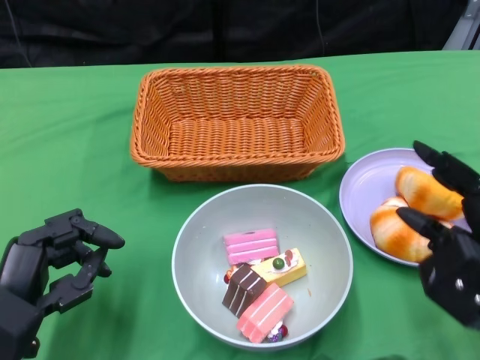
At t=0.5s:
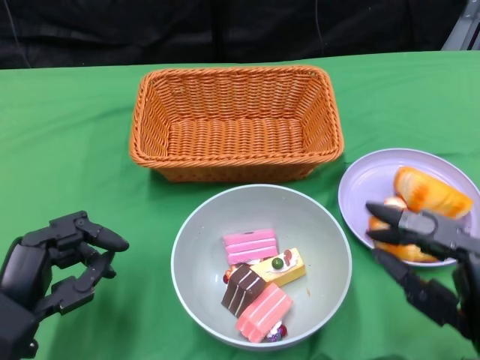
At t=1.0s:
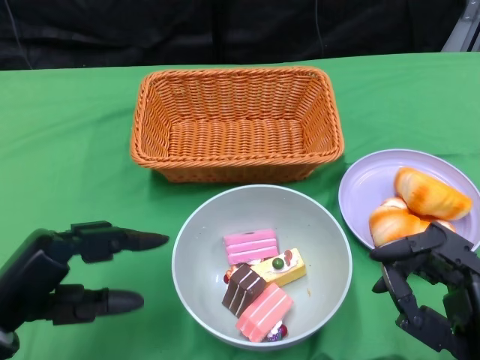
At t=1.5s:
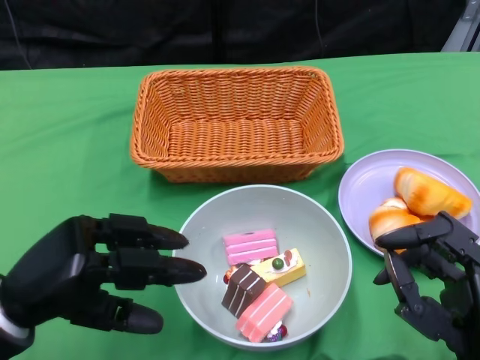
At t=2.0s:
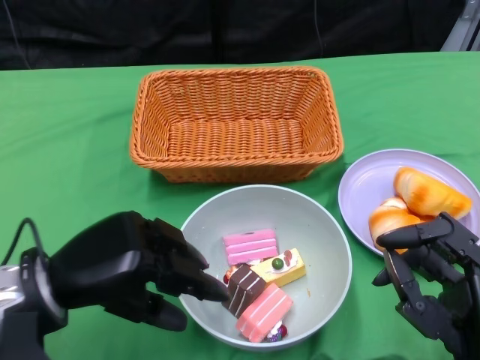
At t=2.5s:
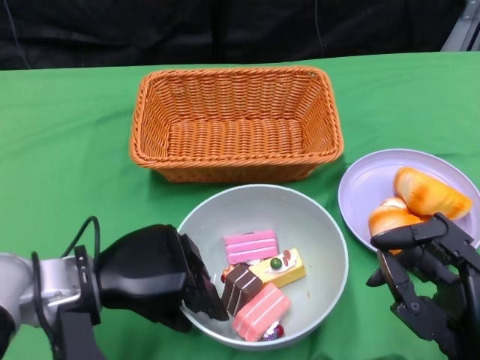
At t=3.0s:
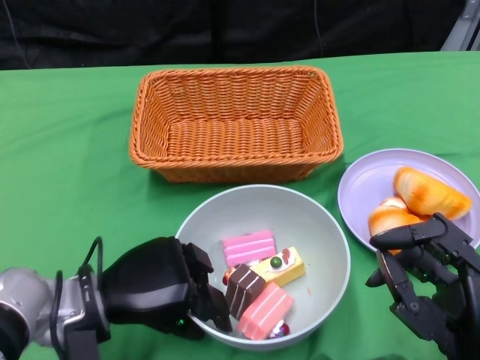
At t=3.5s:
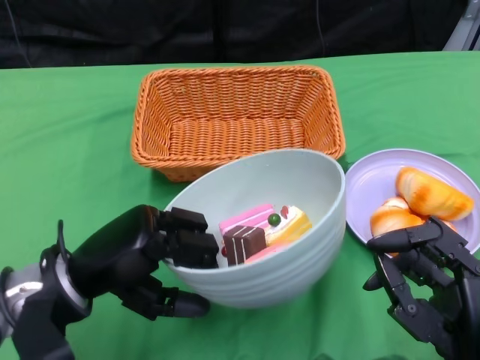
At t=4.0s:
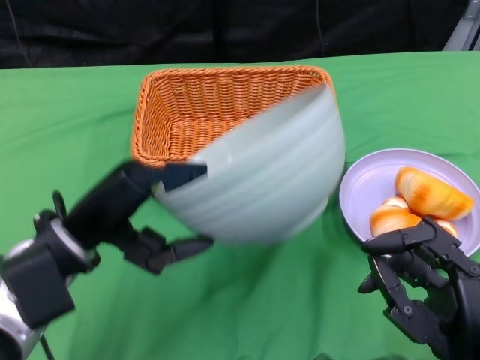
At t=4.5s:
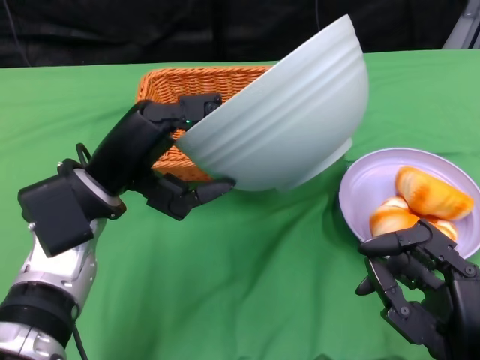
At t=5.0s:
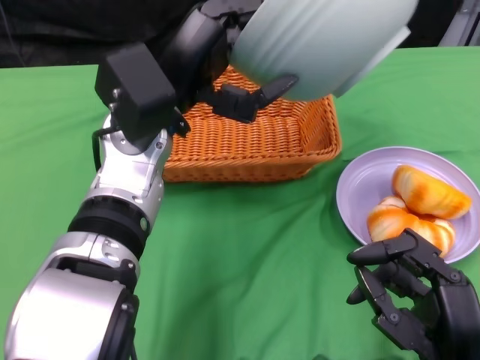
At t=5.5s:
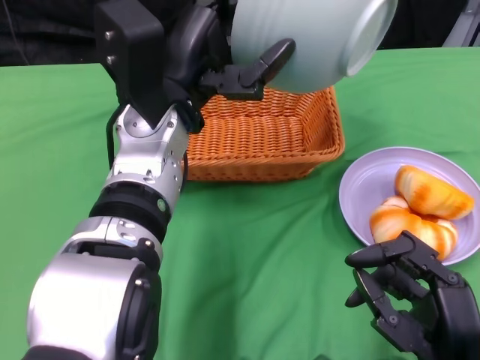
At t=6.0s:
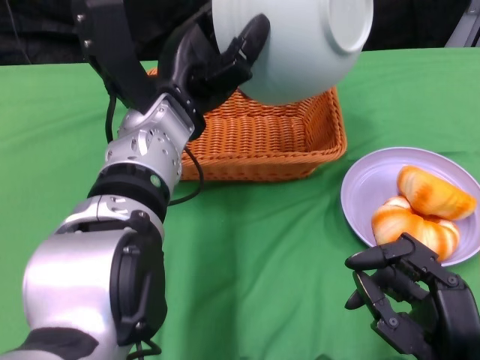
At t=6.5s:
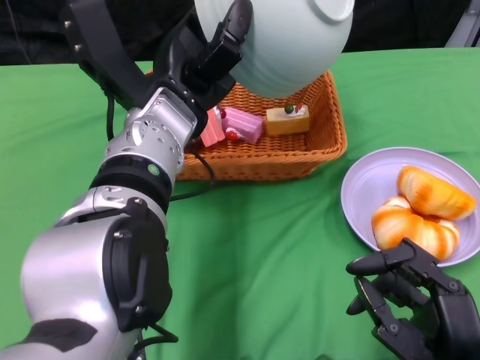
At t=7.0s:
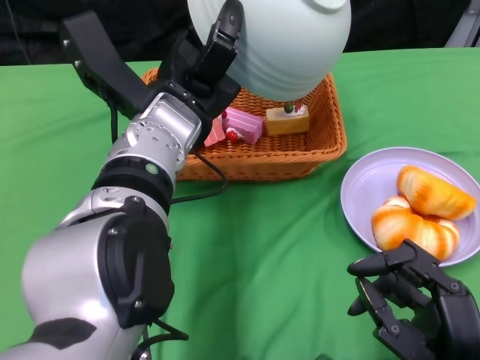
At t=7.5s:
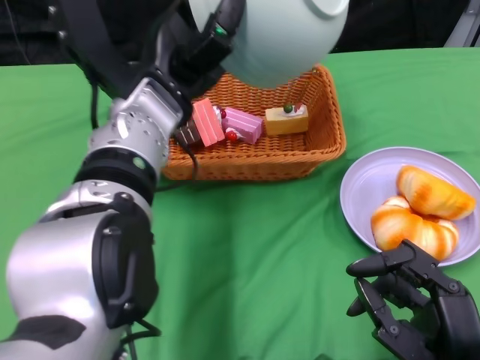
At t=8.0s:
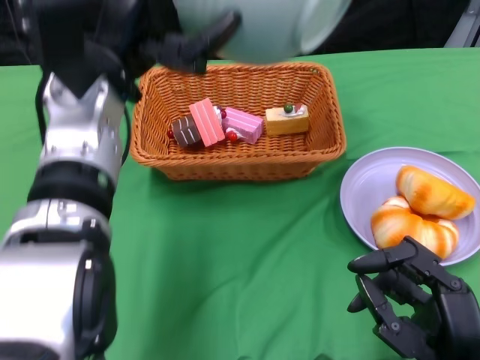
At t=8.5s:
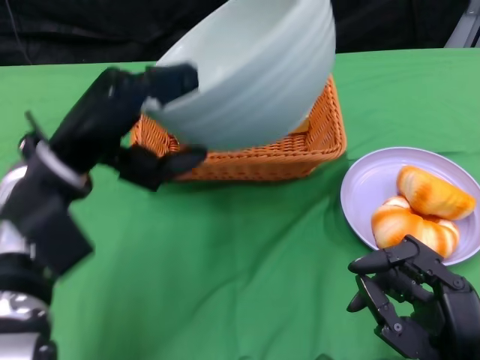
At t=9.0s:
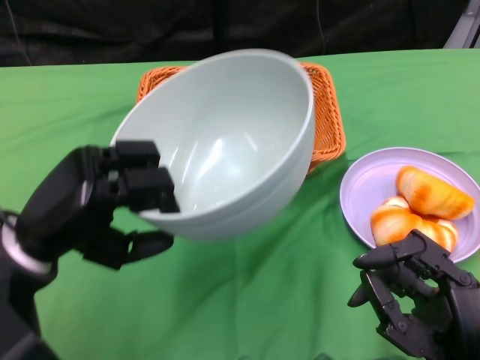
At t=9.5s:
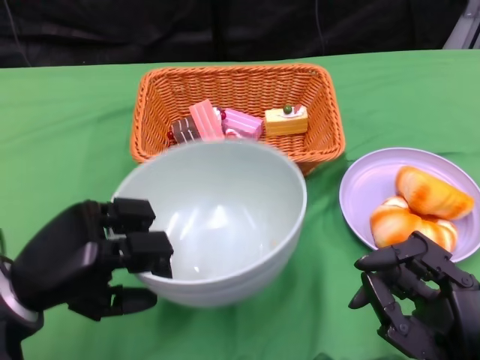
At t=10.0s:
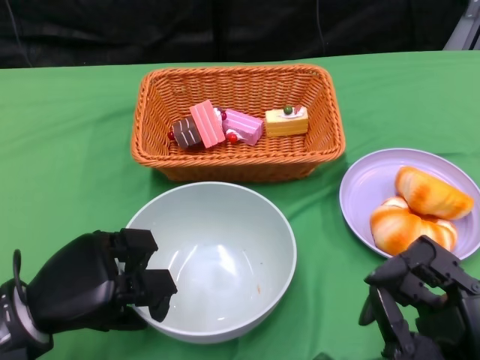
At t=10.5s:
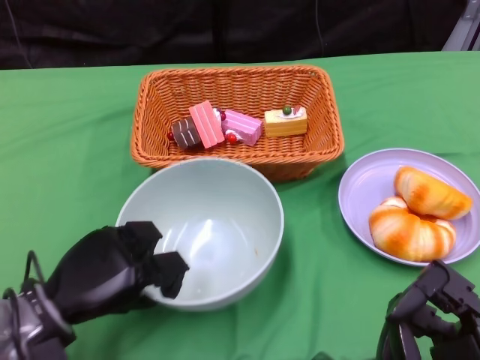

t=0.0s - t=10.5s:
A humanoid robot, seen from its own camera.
Step, t=0.0s - t=3.0s: Grasp the bowl with the left gripper.
Step, t=3.5s - t=6.5s: Pour the cake into the basket with the left gripper.
t=0.0s - t=2.0s: The right hand is displaced backward by roughly 5 cm; the left hand ends up some 5 cm from where it was.
t=4.0s - t=6.5s: The left hand heads to the right, forward and upward, covering roughly 15 cm.
t=6.5s - t=8.5s: The left hand shifts approximately 10 cm to the left and backward.
t=8.5s - t=10.5s: The left hand is displaced downward and backward by roughly 15 cm.

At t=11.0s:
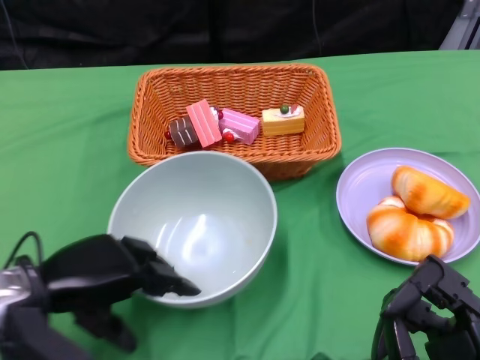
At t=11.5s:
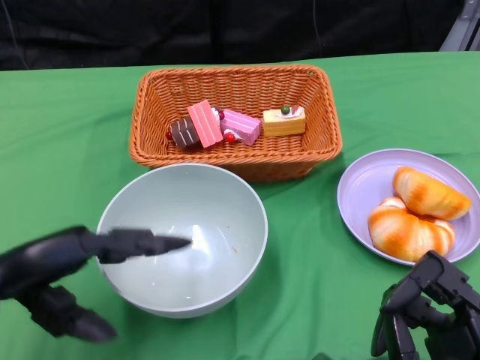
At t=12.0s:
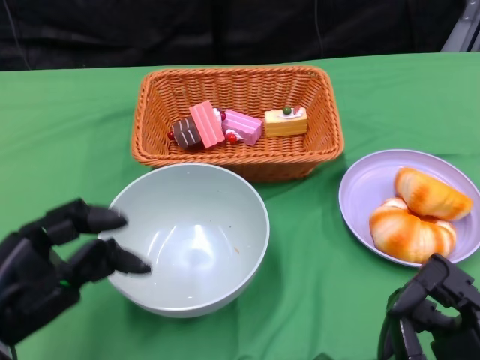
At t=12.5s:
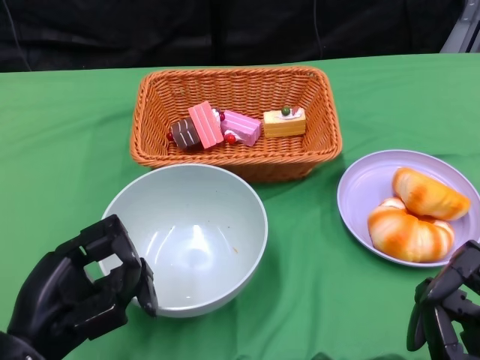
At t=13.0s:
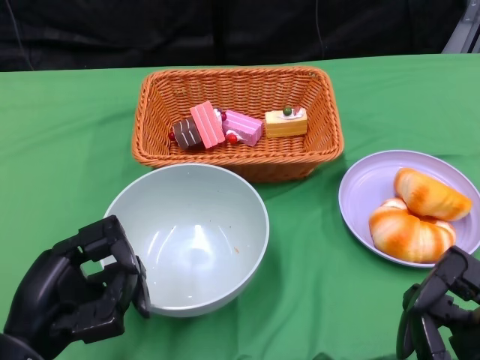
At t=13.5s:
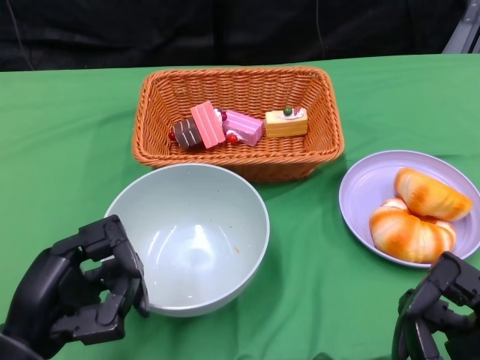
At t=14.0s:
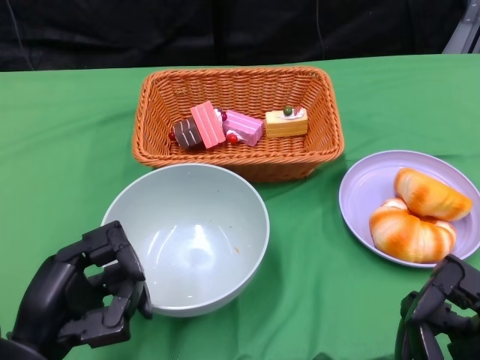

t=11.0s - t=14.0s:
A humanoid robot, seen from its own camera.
t=11.0s - t=12.5s: The left hand travels backward by some 10 cm.
t=12.5s - t=14.0s: The hands stay close to where they were, moving slightly.

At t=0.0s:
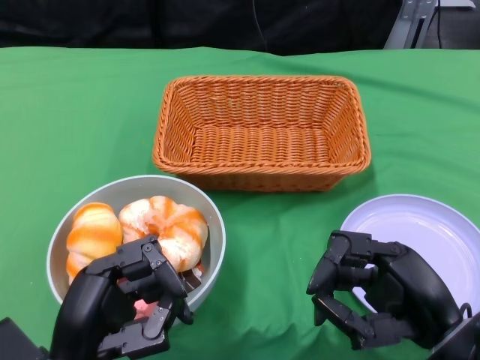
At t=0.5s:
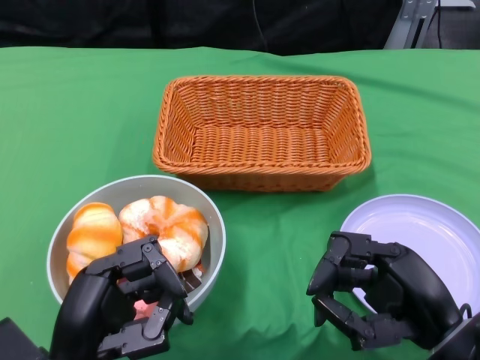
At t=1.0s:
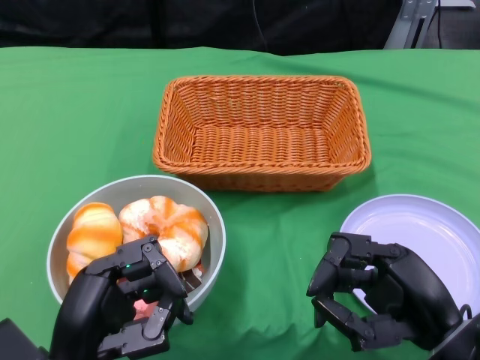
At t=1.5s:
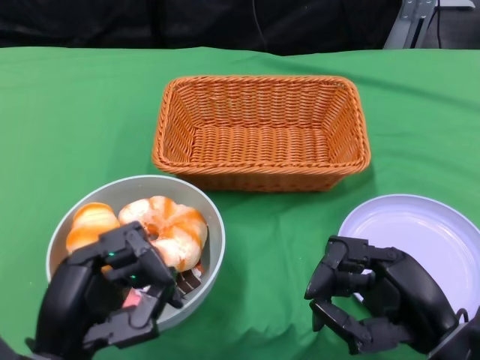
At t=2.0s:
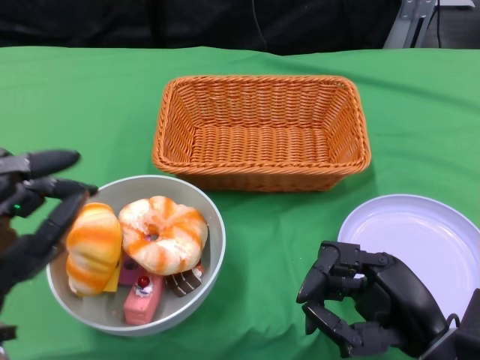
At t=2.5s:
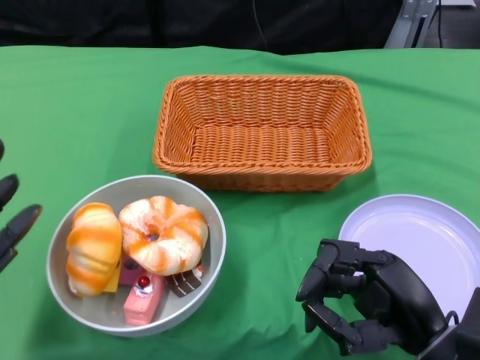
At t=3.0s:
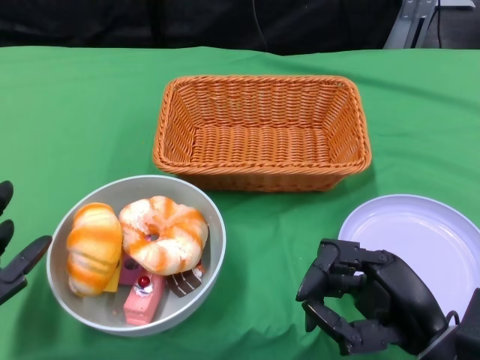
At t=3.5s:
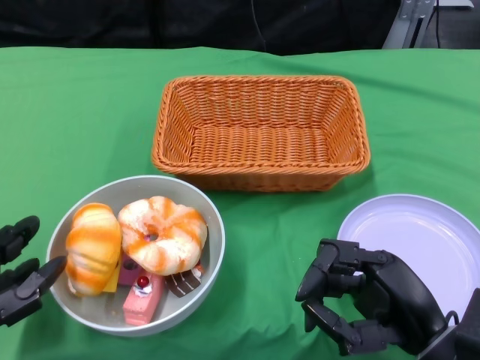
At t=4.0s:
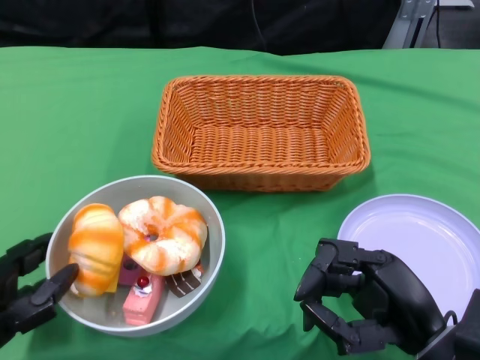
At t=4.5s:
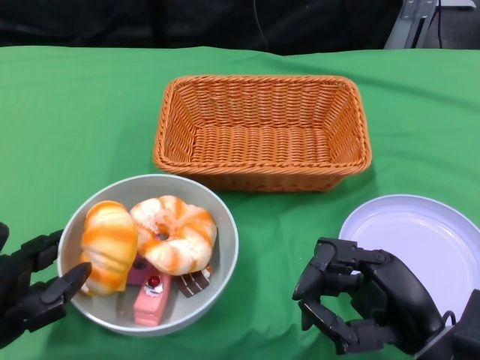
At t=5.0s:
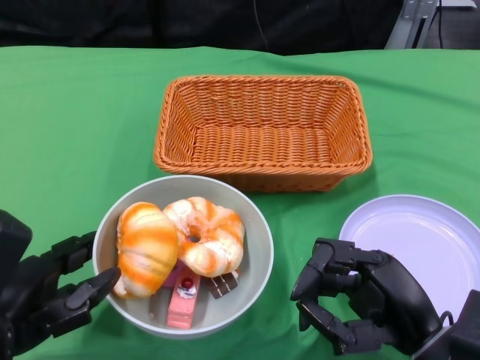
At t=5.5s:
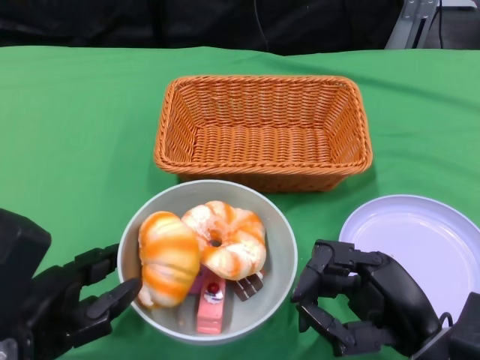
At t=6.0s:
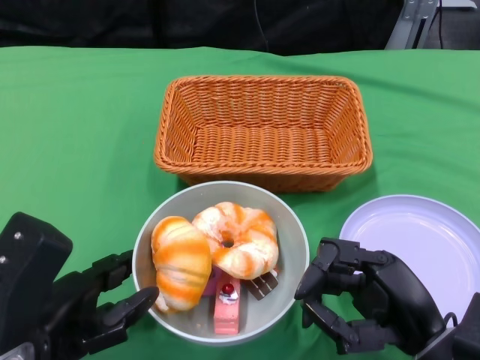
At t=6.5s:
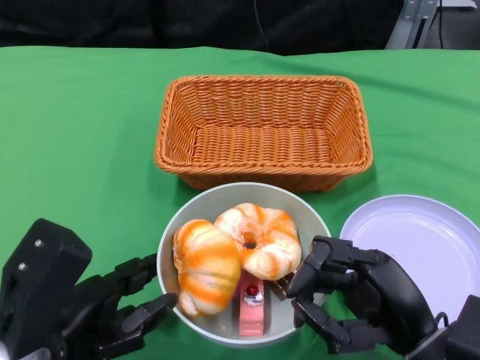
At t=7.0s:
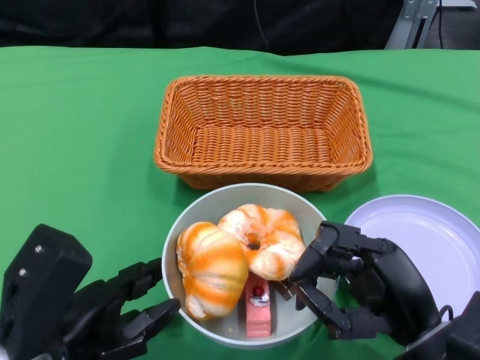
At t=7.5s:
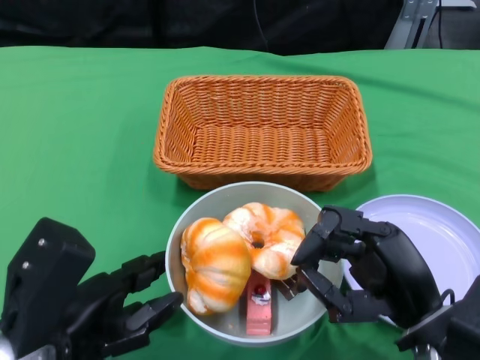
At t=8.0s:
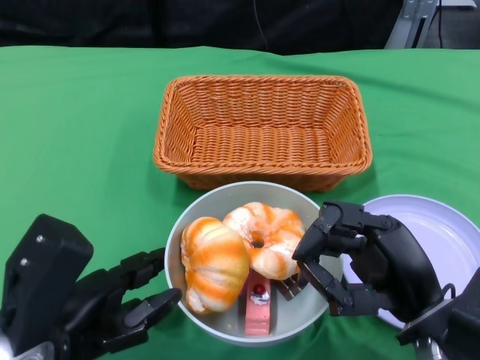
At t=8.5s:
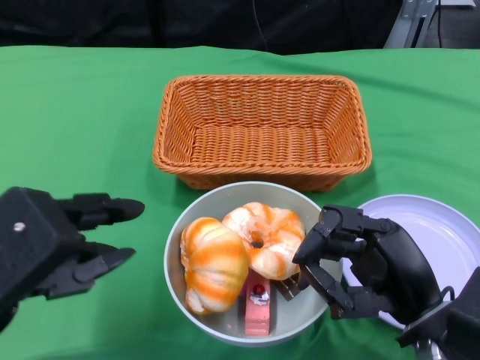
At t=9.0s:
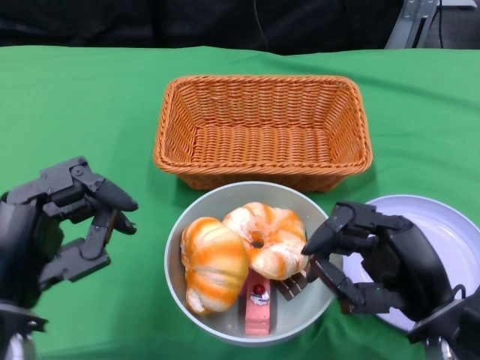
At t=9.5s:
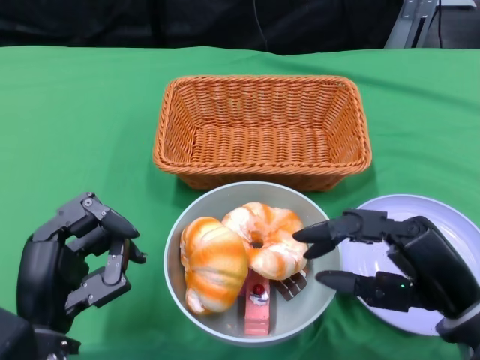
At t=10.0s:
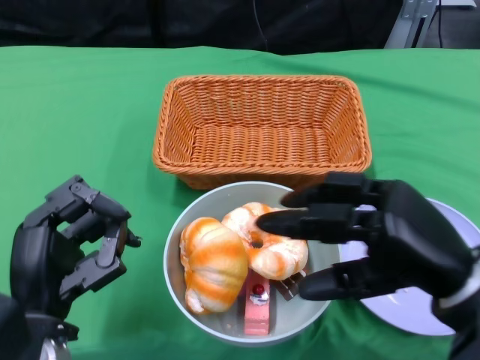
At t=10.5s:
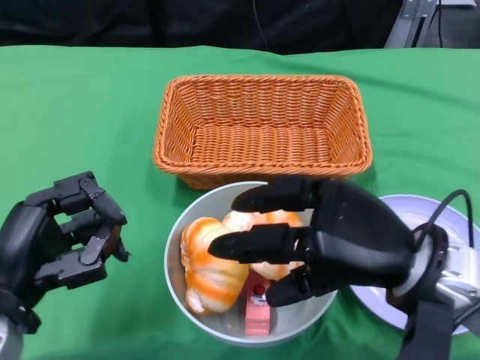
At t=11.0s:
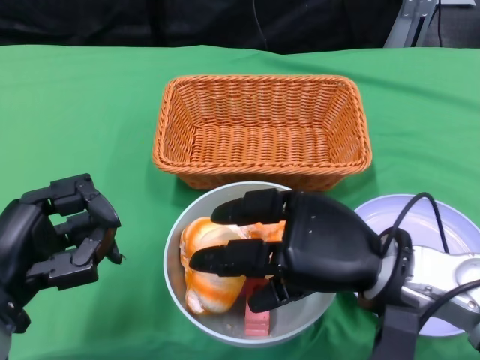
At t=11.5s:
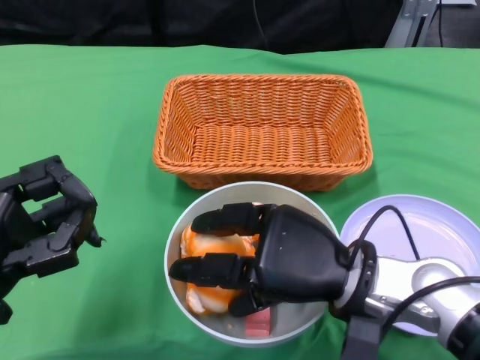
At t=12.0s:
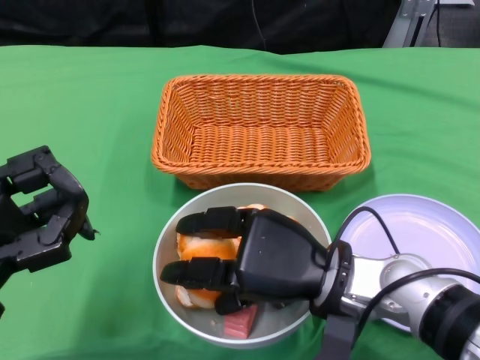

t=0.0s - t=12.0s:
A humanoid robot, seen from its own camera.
Step, t=0.0s - t=8.5s: Push the bowl to the center of the table using the left gripper.
t=2.0s - t=4.0s: The left hand moves approximately 5 cm.
t=4.0s - t=6.0s: The left hand shifts approximately 5 cm to the right.
t=8.0s - t=10.0s: The right hand goes roughly 5 cm upward. Meanwhile the left hand moves about 5 cm upward and comes back.
t=10.0s - t=12.0s: The right hand is displaced to the left and downward by about 10 cm, while the left hand heads to the left, covering approximately 5 cm.
